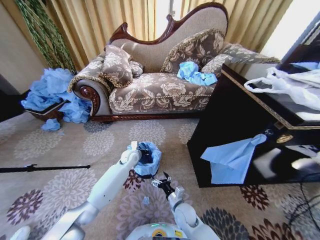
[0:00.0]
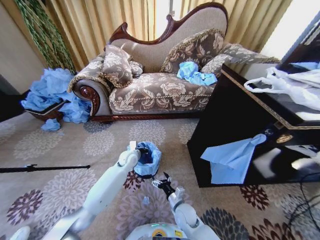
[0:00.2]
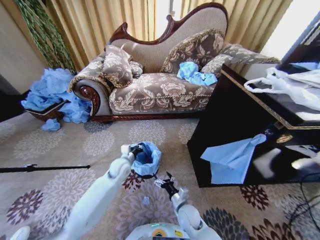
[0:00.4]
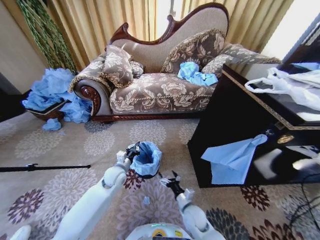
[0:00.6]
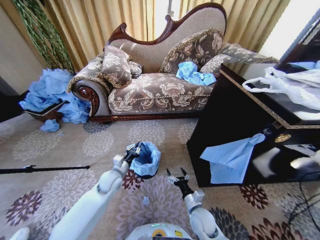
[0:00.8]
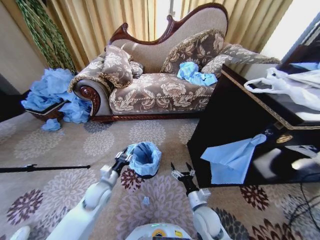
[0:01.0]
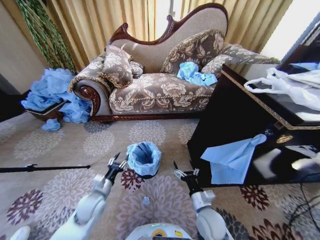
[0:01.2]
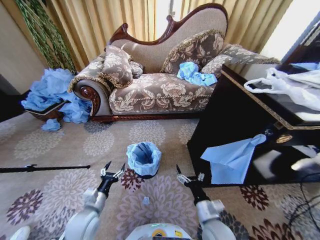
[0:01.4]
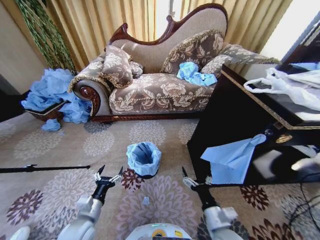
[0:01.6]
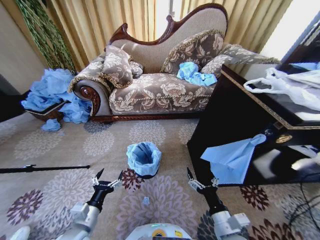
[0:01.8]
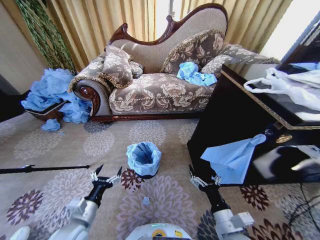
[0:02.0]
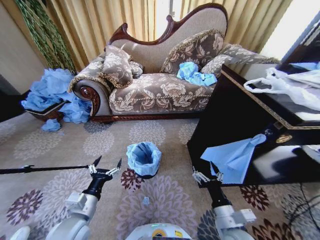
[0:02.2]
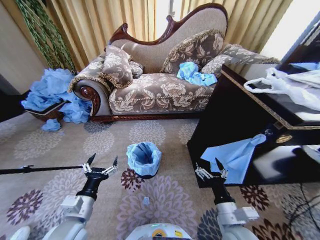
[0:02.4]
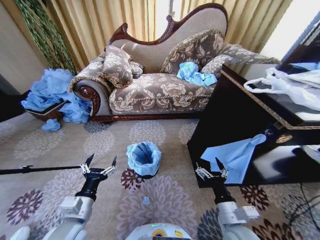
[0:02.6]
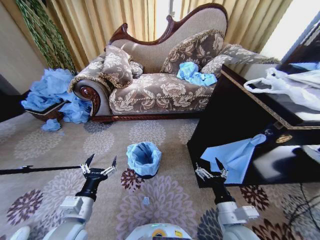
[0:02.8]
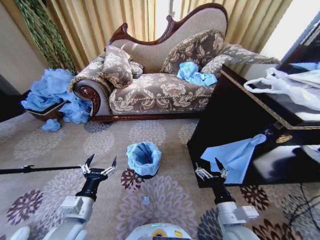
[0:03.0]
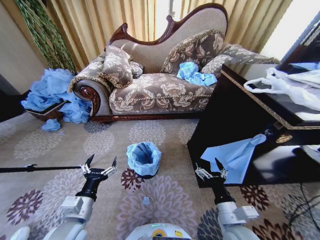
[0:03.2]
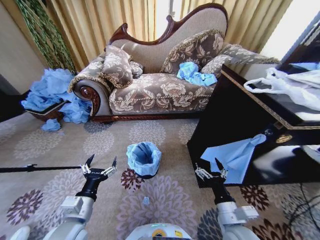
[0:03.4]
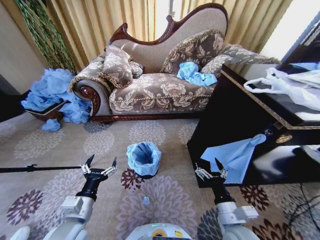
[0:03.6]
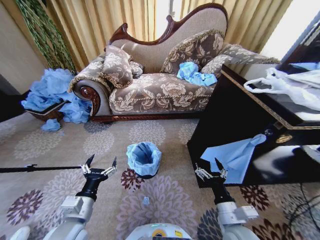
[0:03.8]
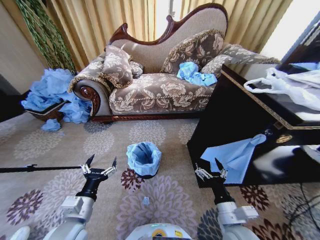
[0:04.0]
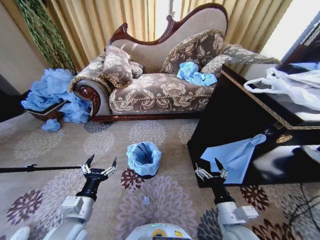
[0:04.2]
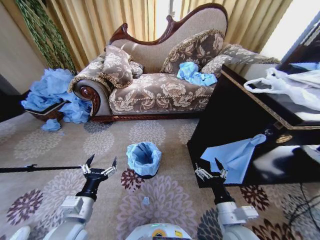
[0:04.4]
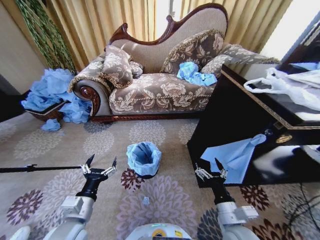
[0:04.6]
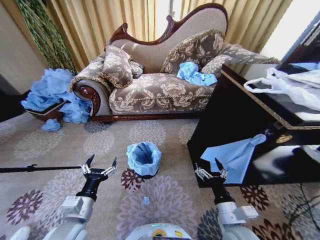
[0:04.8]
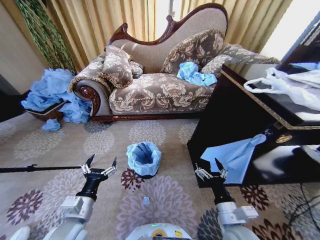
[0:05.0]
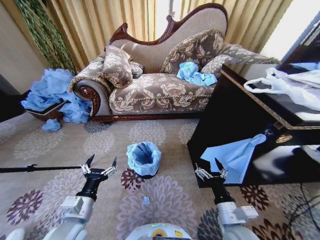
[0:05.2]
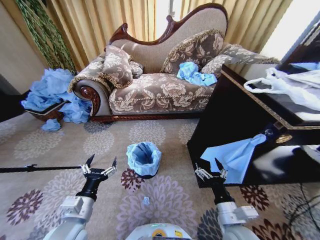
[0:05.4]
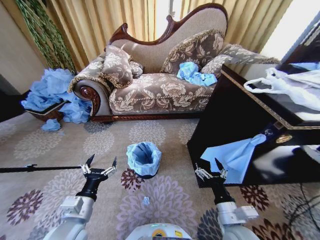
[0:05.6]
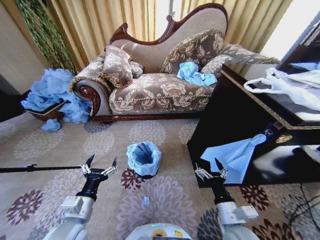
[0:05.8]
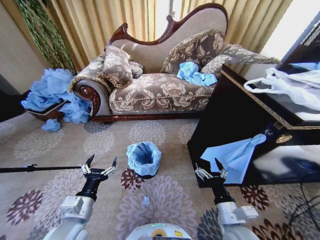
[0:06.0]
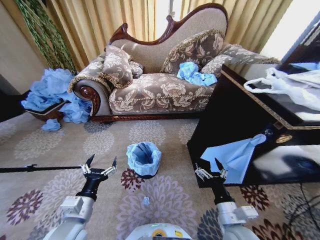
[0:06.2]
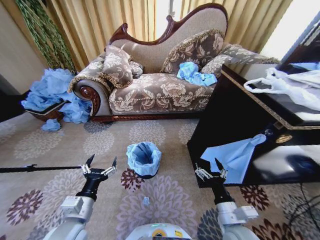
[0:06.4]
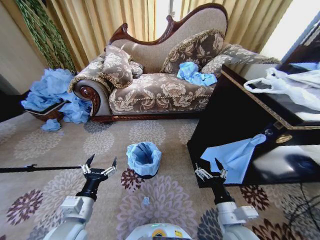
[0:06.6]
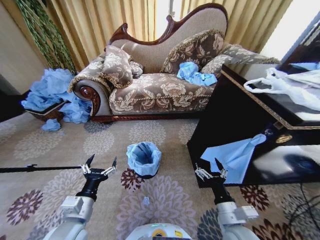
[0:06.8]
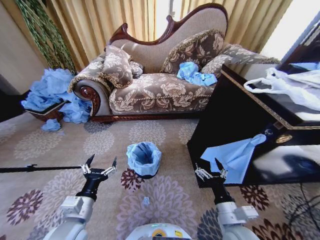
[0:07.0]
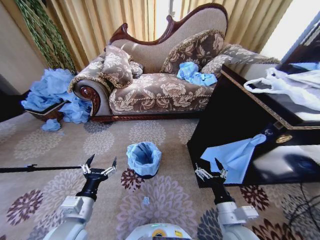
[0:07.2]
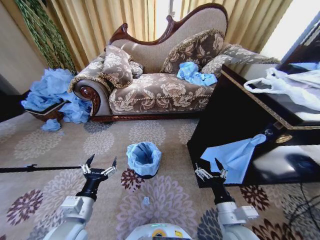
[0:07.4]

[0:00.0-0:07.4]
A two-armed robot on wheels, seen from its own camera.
Task of the whole recording: Place a garbage bag over the trash bin.
0:00.0 to 0:01.4: The right gripper heads upward, backward and to the right, covering about 15 cm. Meanwhile the left gripper heads backward, covering about 30 cm, and opens.
0:01.4 to 0:03.0: The left gripper moves upward, some 10 cm. The right gripper goes about 5 cm upward.
0:03.0 to 0:07.4: The two grippers keep their place.

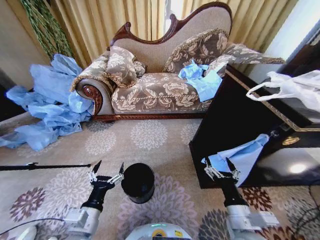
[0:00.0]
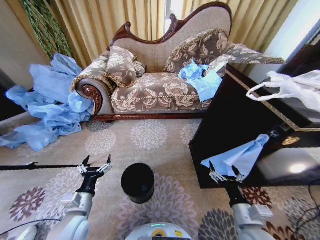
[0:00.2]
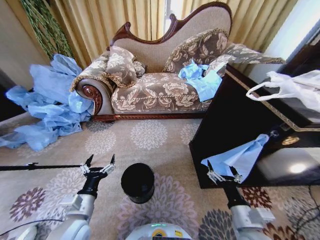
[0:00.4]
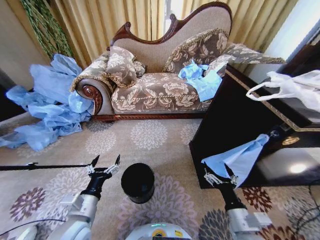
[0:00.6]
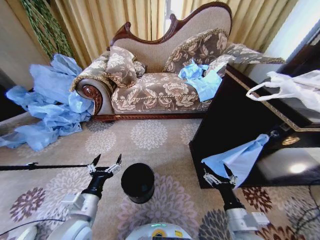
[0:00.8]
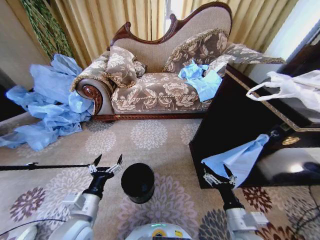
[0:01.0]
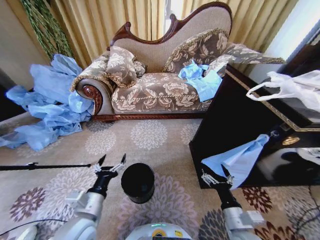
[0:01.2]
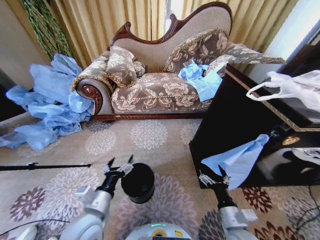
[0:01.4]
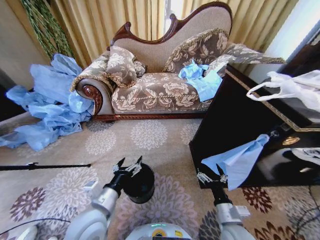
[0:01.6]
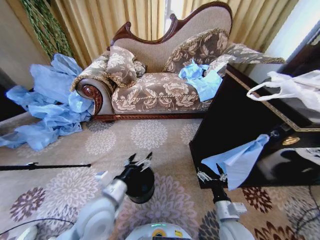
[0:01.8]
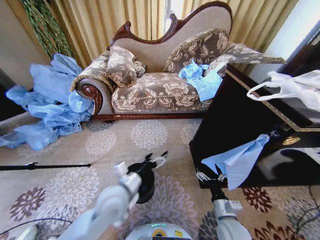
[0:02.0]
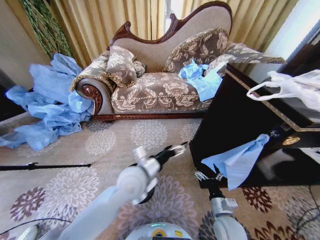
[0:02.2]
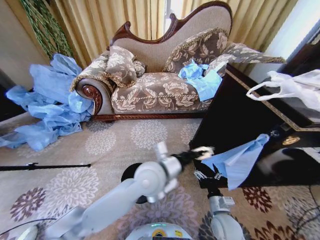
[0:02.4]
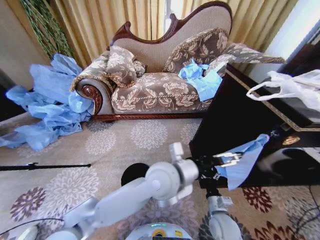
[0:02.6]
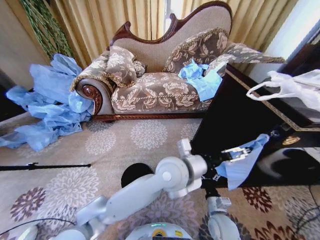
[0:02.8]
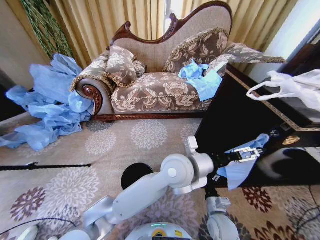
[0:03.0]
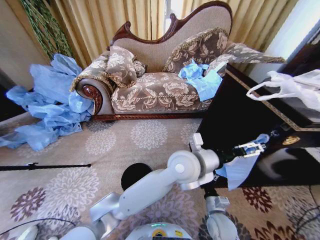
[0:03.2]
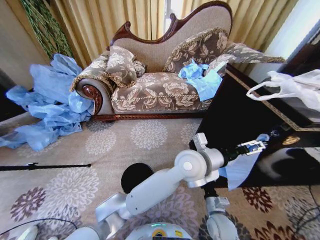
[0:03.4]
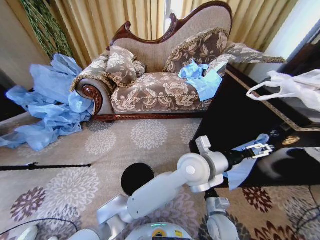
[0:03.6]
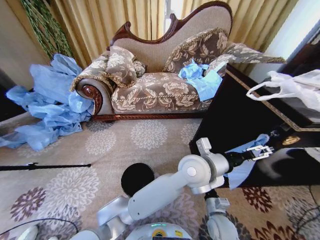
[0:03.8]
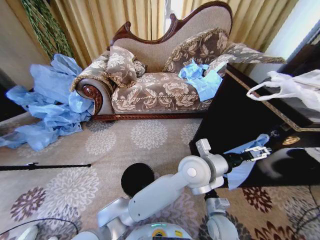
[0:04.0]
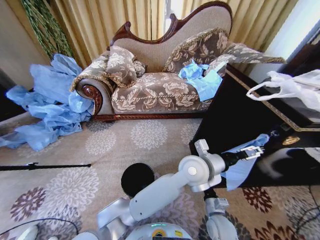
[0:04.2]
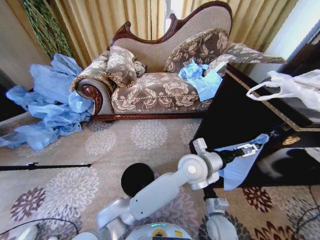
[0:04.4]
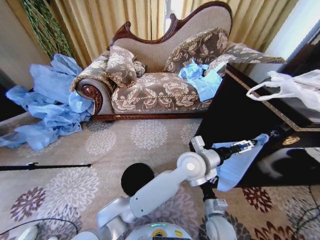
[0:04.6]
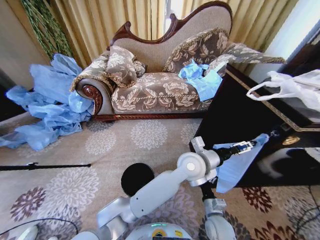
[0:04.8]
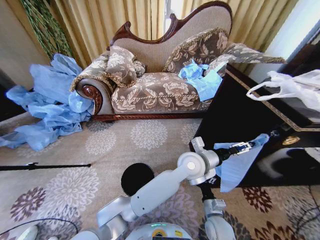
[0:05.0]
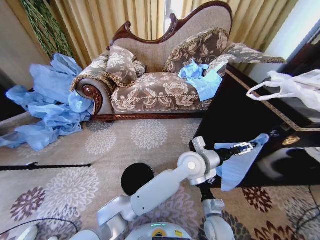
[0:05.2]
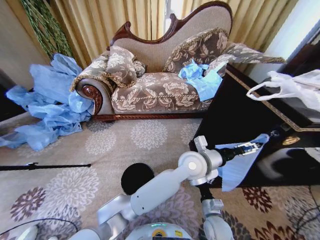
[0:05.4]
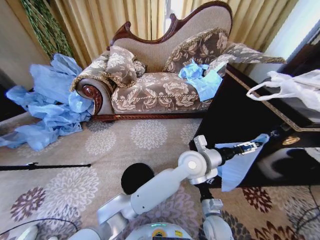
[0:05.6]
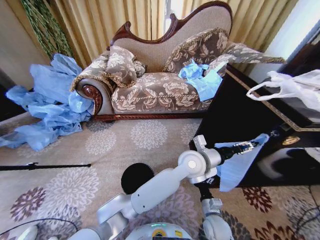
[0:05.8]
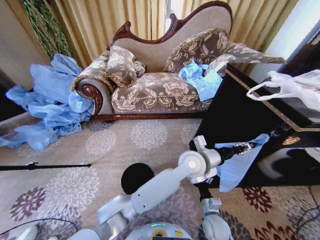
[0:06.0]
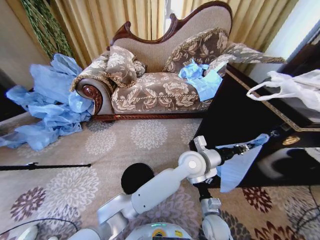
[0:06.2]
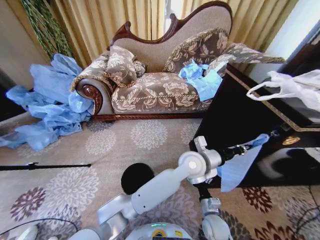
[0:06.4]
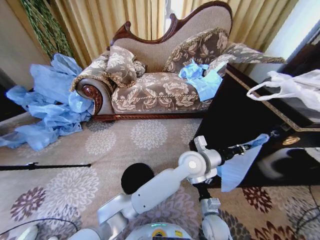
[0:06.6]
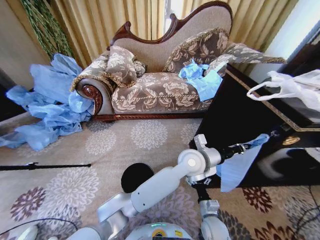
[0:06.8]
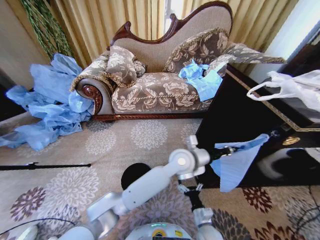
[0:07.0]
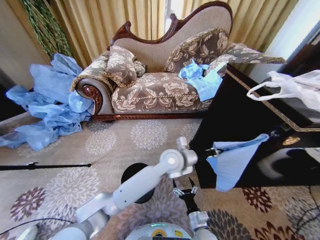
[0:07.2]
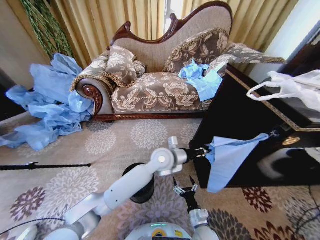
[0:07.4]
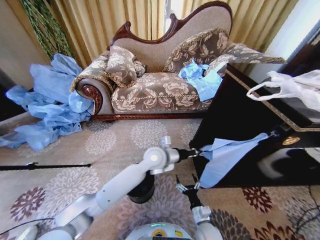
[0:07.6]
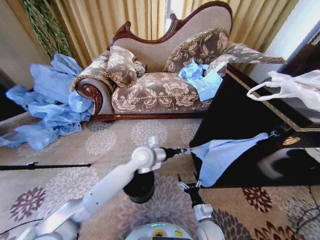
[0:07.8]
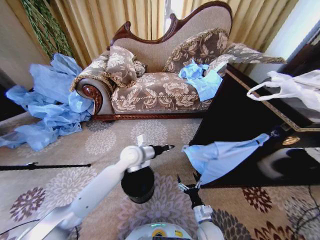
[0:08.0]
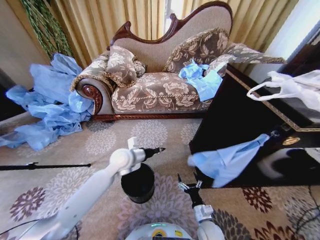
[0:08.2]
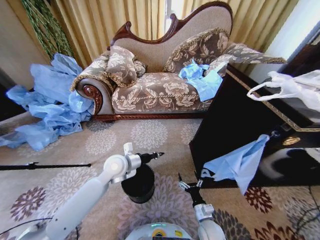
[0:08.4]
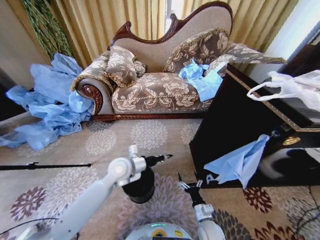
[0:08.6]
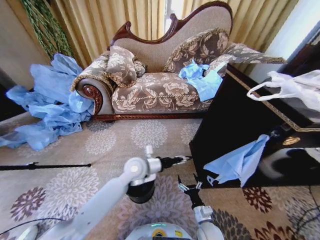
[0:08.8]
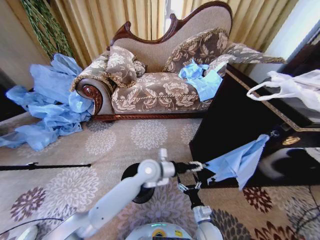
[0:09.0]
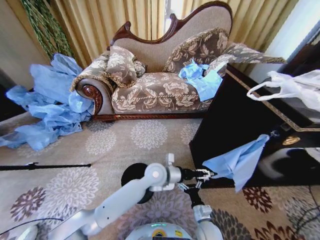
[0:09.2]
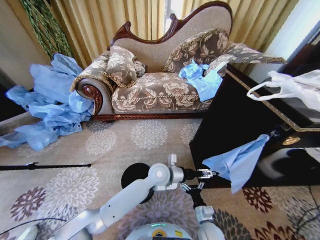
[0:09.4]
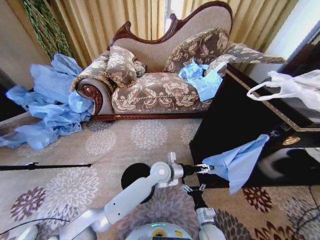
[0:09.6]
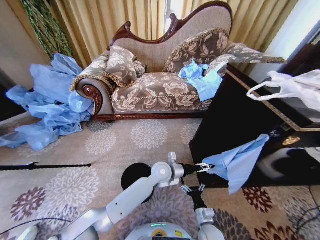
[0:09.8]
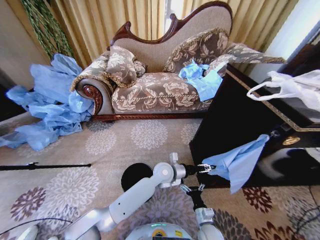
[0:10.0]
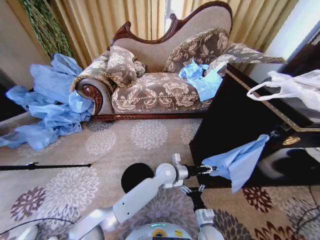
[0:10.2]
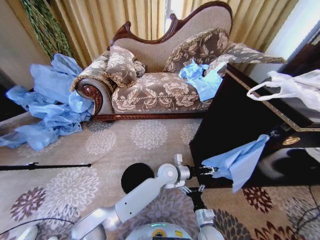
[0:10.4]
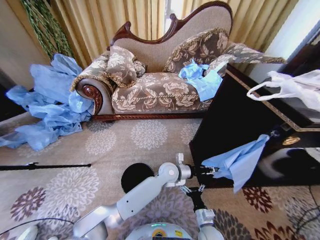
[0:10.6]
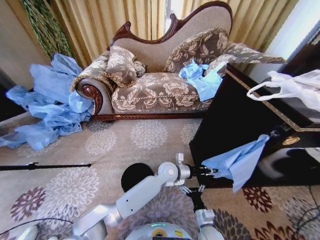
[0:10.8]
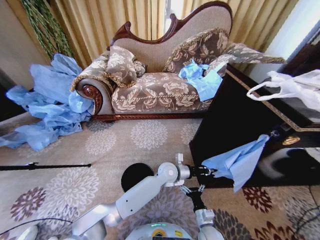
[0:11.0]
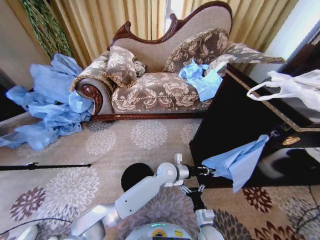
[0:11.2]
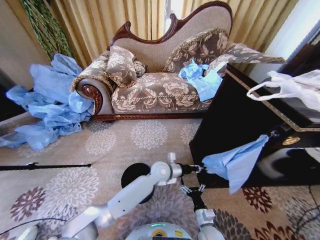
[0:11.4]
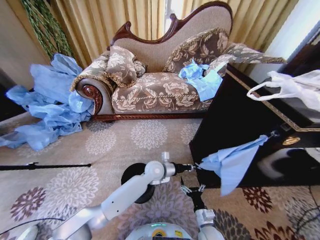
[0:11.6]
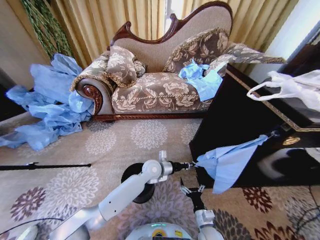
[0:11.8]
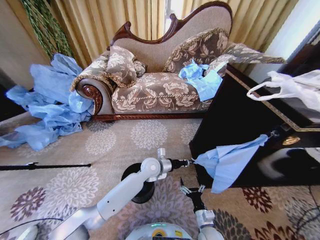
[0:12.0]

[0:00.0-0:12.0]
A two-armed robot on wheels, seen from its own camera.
Task of the whole recording: Place a garbage bag over the trash bin.
0:01.6 to 0:03.0: The right gripper moves downward, about 5 cm; the left gripper travels to the right, forward and upward by roughly 30 cm.
0:03.0 to 0:04.4: The left gripper is displaced to the right by roughly 5 cm.
0:04.4 to 0:06.0: The left gripper closes.
0:06.0 to 0:07.6: The left gripper shifts some 15 cm to the left, and closes, while the right gripper ends up approximately 5 cm from where it was.
0:07.6 to 0:09.0: The left gripper travels to the left and back again, approximately 15 cm each way, and opens.
0:09.0 to 0:10.4: The left gripper is displaced to the right and downward by approximately 10 cm, and opens and closes again.
0:10.4 to 0:12.0: The left gripper shifts approximately 10 cm to the left, and closes up.

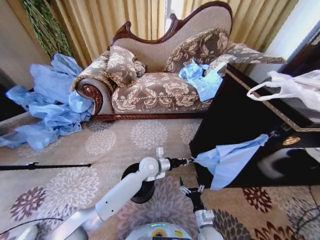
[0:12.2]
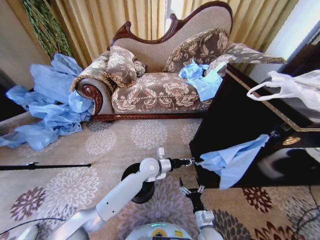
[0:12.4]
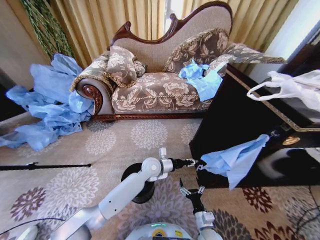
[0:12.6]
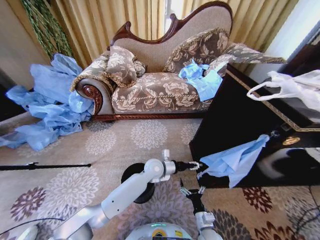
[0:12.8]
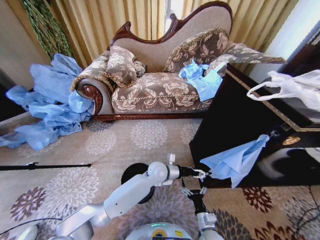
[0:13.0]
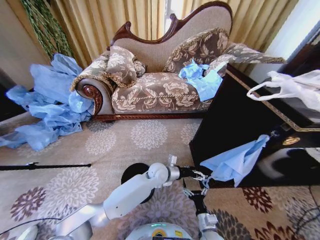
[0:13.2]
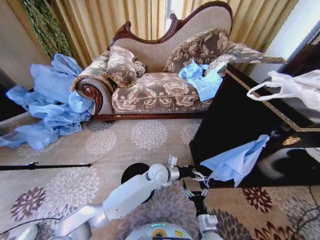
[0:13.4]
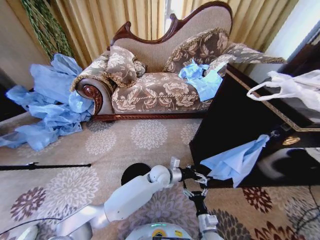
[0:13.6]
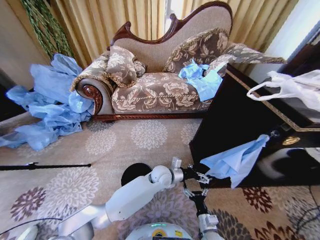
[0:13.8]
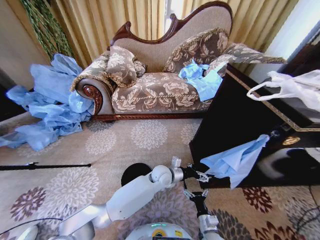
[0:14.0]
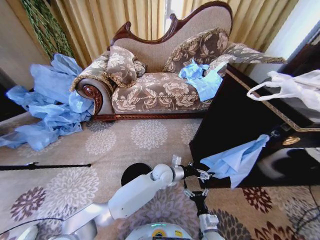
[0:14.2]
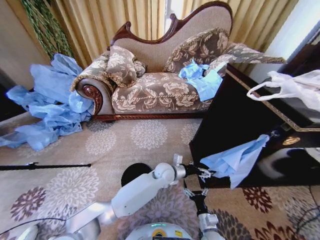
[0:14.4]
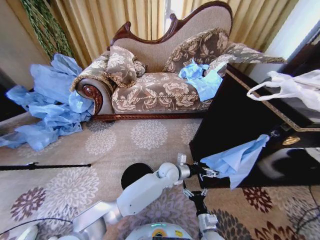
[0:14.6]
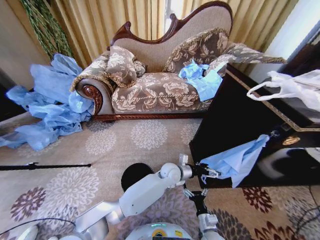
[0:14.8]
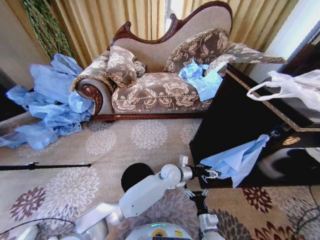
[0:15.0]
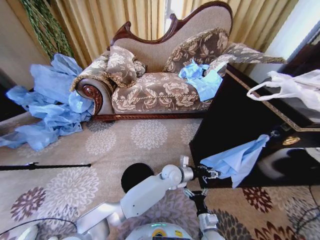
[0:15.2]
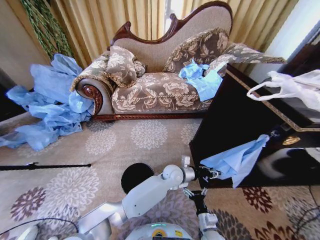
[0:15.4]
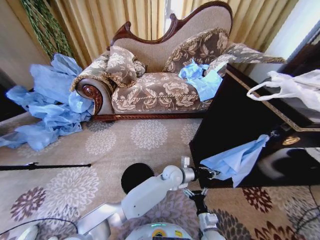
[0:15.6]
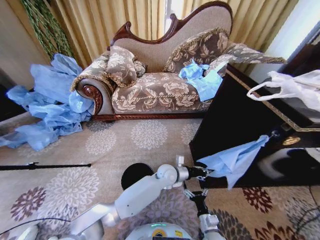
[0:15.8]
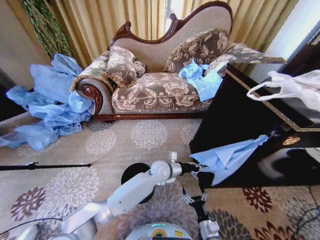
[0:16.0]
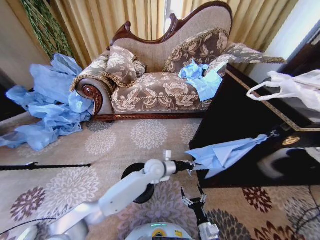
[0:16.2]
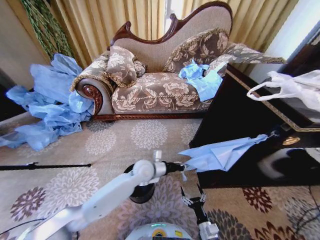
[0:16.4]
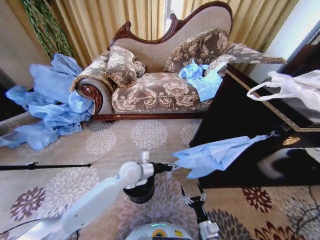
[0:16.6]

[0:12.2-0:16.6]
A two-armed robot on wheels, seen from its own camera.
Task of the whole recording: Place a garbage bag over the trash bin.
0:12.2 to 0:13.6: The left gripper goes approximately 5 cm to the right, and opens its fingers.
0:13.6 to 0:15.2: The left gripper heads to the right, covering some 5 cm, and closes its fingers.
0:15.2 to 0:16.6: The left gripper is displaced to the left by about 20 cm, and closes up.
